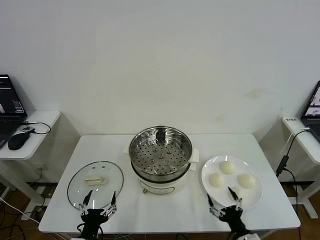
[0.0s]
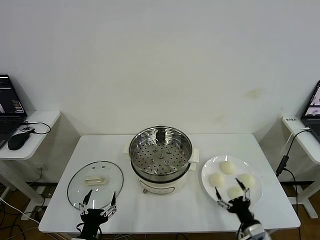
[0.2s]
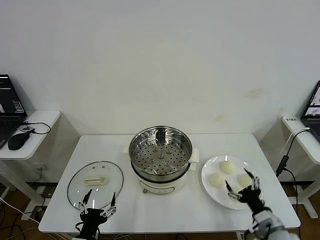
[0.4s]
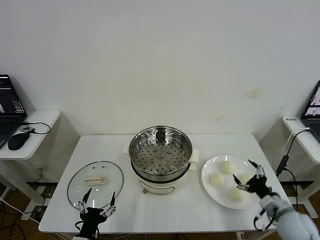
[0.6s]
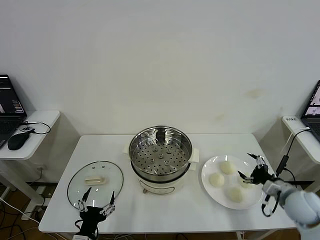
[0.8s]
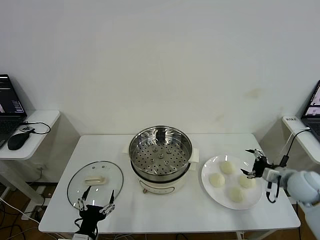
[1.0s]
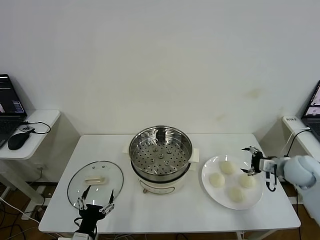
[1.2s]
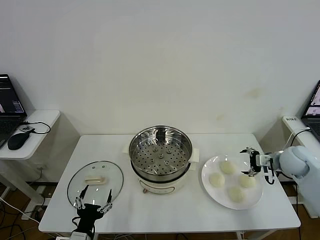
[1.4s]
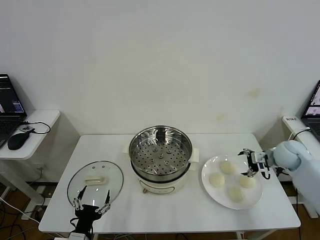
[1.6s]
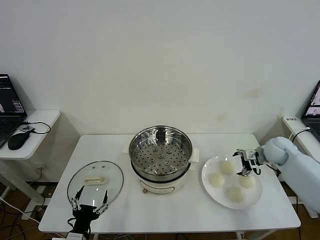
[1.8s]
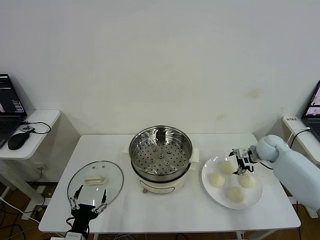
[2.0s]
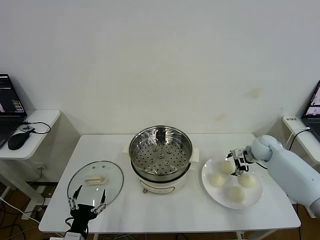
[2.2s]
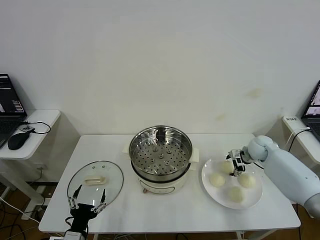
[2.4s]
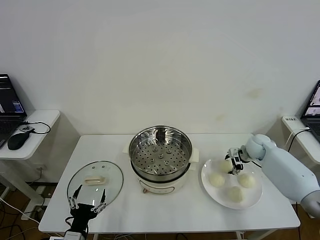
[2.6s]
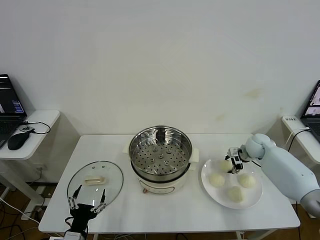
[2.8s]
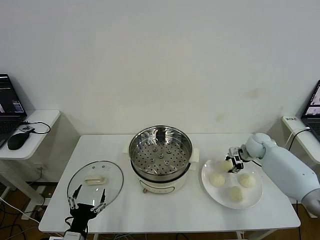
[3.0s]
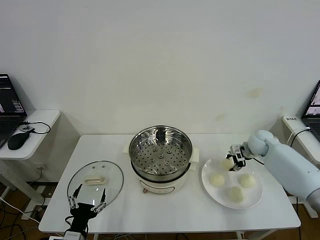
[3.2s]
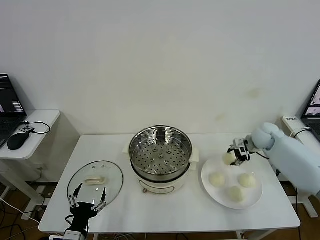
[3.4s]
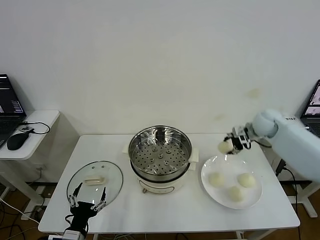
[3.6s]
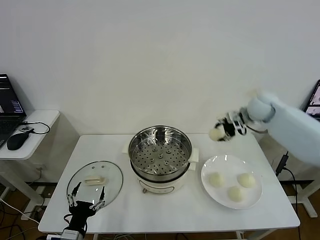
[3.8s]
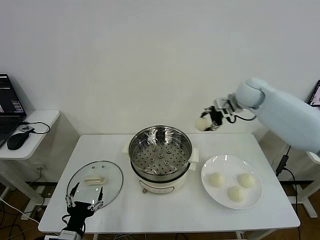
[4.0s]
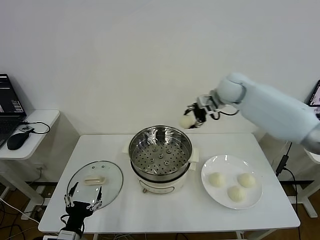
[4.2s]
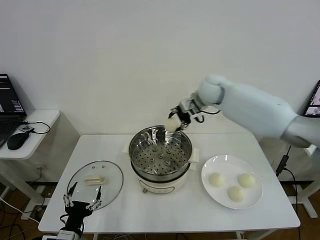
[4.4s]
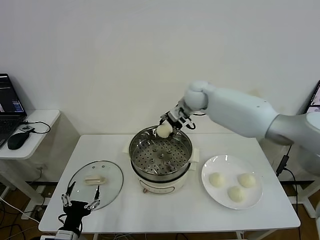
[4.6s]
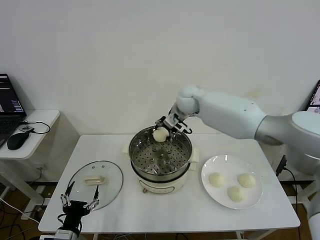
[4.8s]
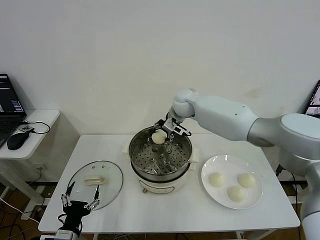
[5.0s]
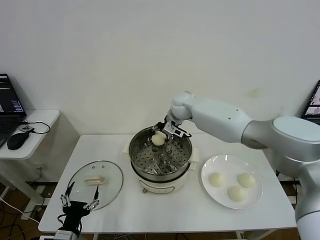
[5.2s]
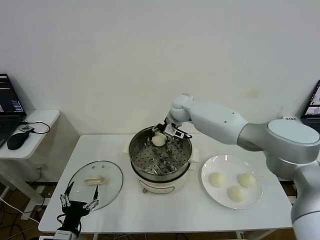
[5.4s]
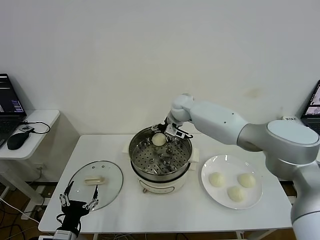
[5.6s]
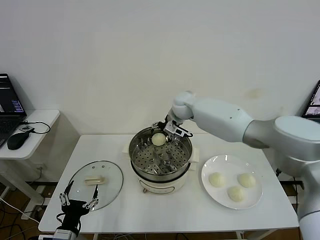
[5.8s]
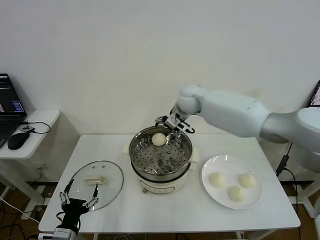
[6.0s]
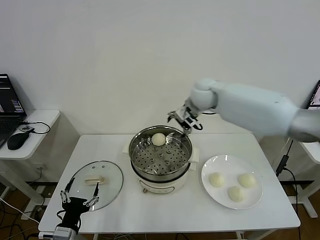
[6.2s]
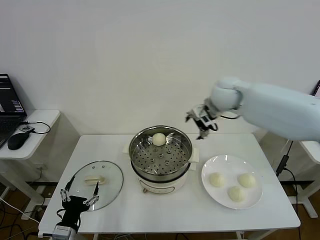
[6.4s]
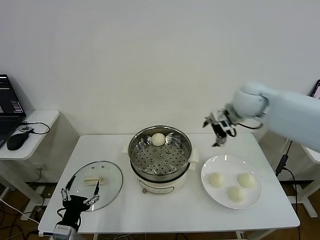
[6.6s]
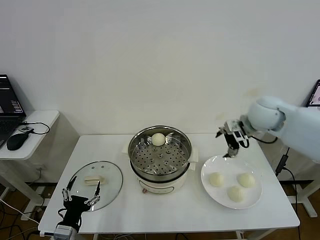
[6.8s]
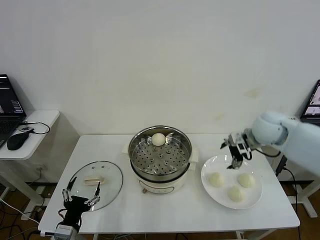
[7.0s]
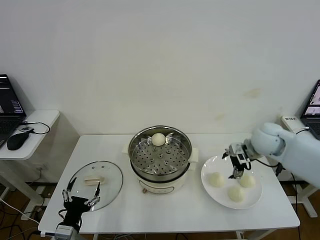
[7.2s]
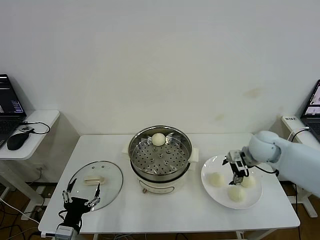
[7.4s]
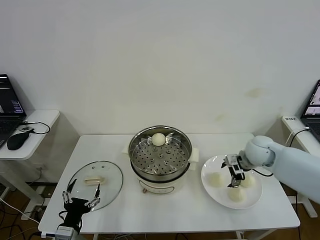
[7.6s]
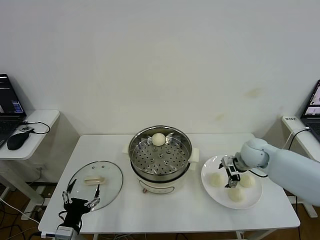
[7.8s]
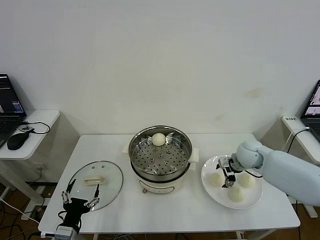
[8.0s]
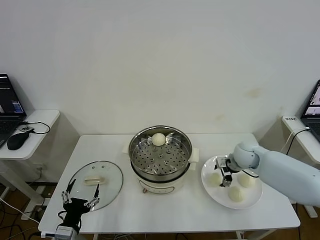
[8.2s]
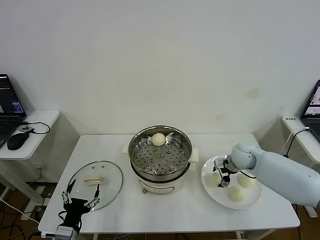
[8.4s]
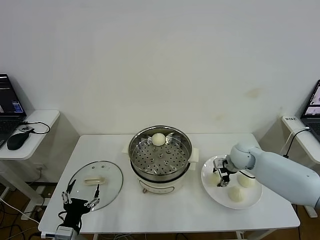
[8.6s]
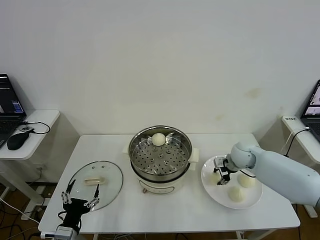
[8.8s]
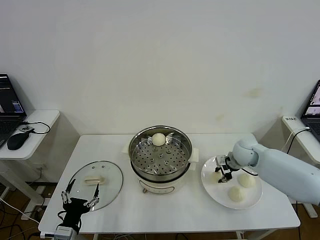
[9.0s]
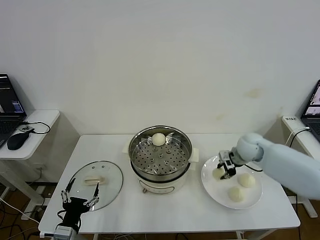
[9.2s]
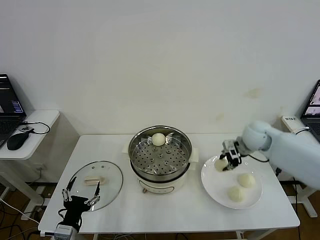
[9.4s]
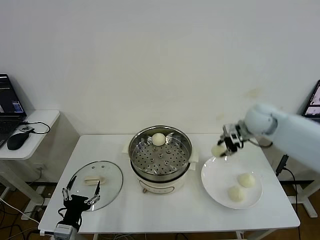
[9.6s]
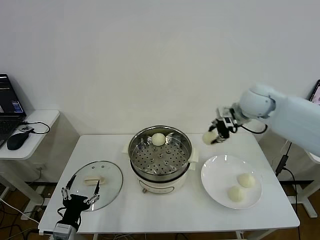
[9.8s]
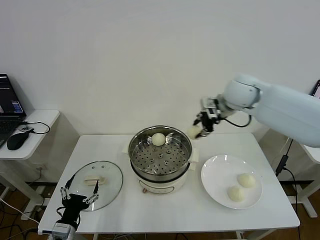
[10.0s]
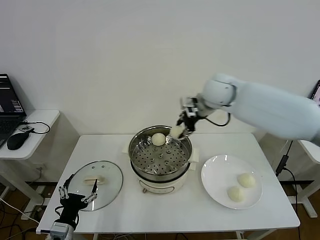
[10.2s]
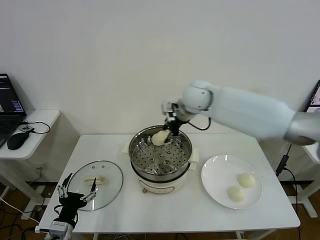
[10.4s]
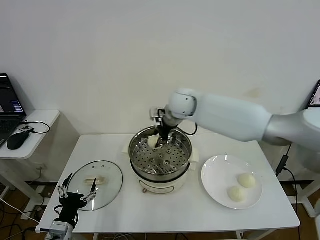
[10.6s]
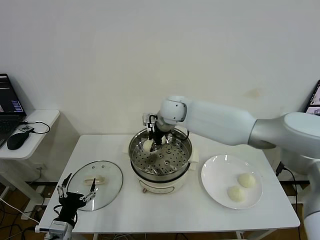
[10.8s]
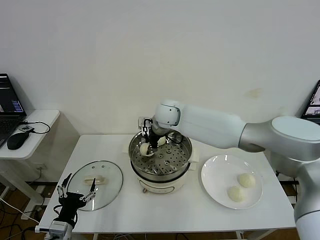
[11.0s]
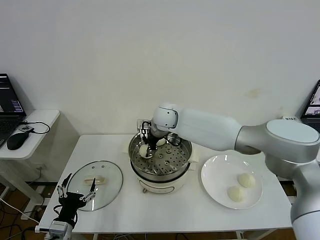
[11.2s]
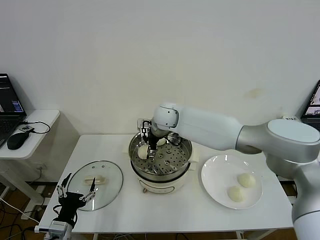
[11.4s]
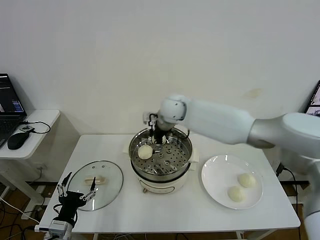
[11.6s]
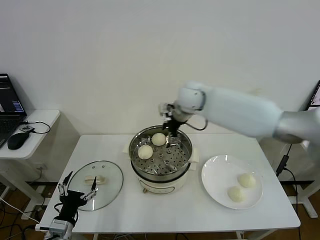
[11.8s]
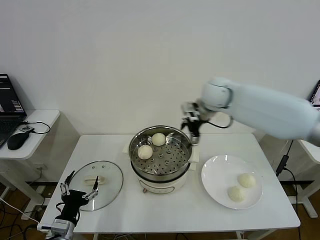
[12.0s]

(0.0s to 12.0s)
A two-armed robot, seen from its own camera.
Step, 0.0s - 3.0s: Grasp the baozi in the plate with right gripper.
Step, 3.2s - 5.6s: Place the baozi on the steamer with right gripper.
Step, 5.8s - 8.8s: Grasp the baozi in the plate with right gripper.
Step, 9.0s - 11.4s: Place the baozi on the steamer with right gripper.
1.6s - 3.0s: The right gripper shifts about 10 cm forward and to the left, and closes.
3.0s - 4.4s: The right gripper heads upward and to the left, covering about 30 cm.
4.4s - 6.0s: The right gripper goes roughly 5 cm to the left, and opens.
6.0s - 7.6s: The right gripper travels to the right, backward and downward by some 30 cm.
7.6s - 9.0s: The right gripper shifts by approximately 5 cm, and closes.
9.0s - 10.4s: The right gripper goes roughly 30 cm upward and to the left.
10.4s - 12.0s: The right gripper reaches about 10 cm to the left, then returns, and opens.

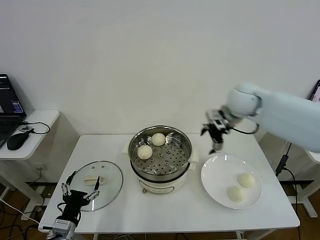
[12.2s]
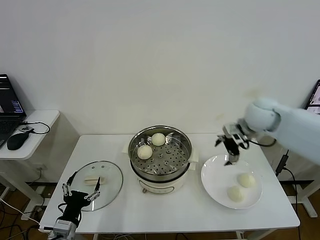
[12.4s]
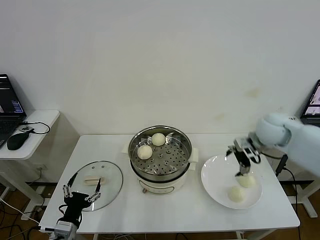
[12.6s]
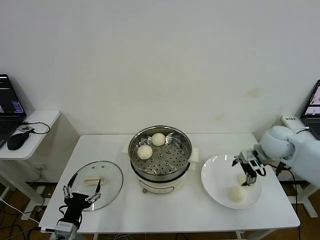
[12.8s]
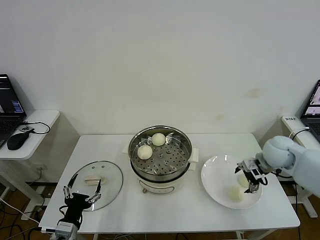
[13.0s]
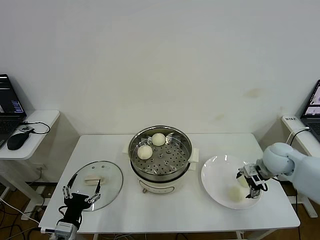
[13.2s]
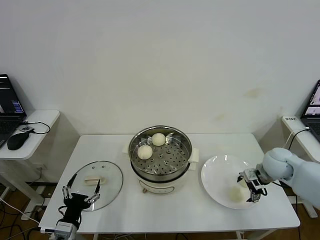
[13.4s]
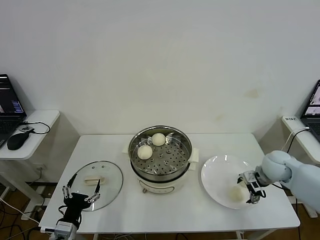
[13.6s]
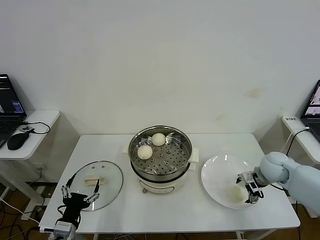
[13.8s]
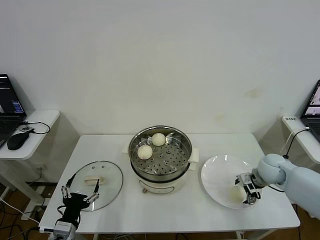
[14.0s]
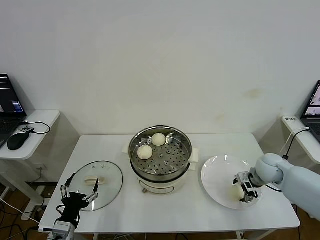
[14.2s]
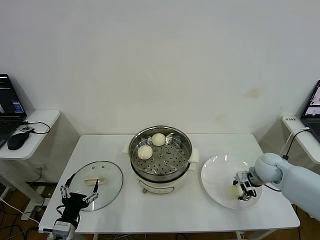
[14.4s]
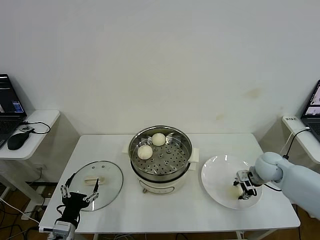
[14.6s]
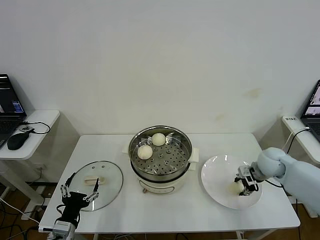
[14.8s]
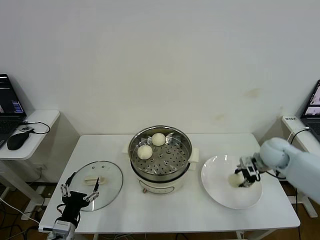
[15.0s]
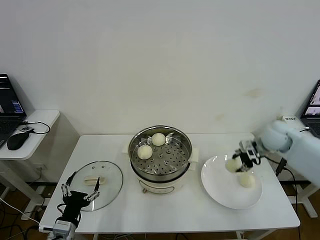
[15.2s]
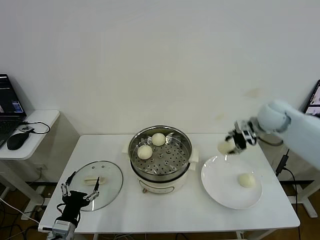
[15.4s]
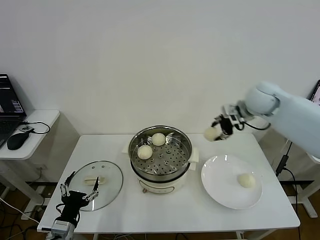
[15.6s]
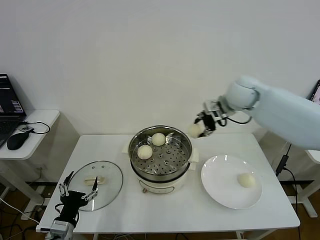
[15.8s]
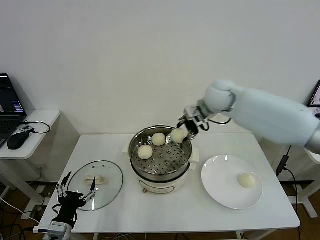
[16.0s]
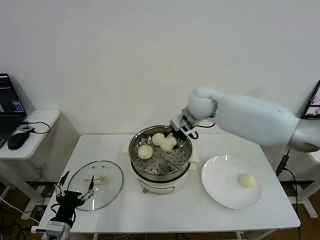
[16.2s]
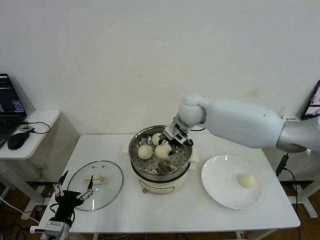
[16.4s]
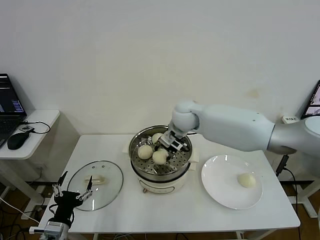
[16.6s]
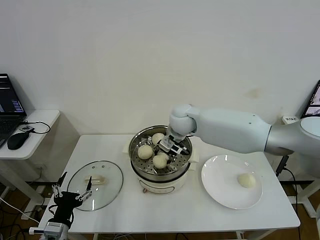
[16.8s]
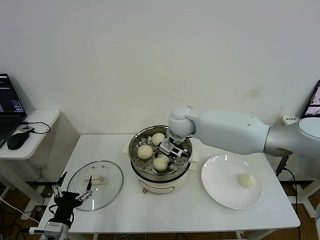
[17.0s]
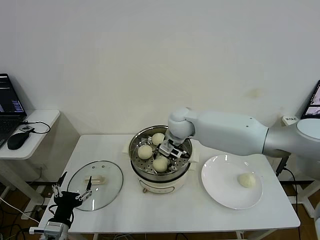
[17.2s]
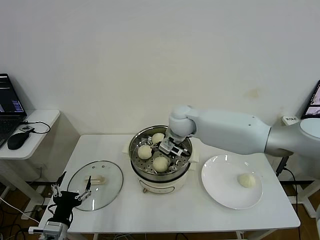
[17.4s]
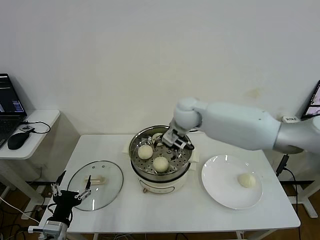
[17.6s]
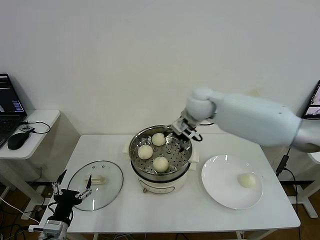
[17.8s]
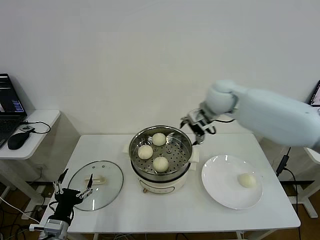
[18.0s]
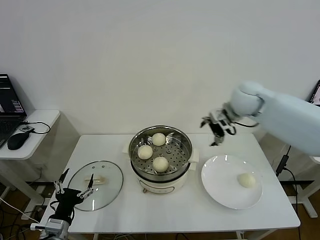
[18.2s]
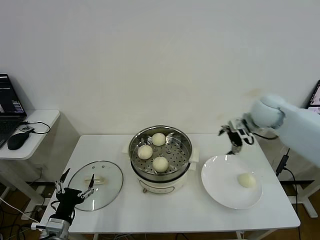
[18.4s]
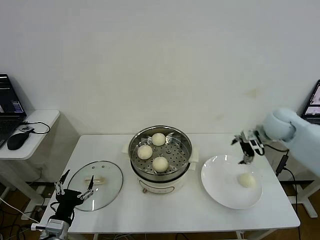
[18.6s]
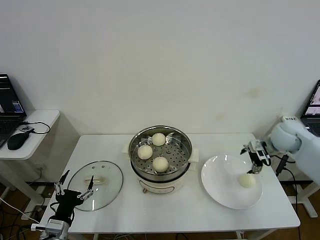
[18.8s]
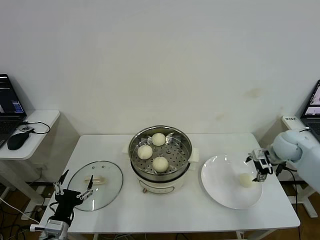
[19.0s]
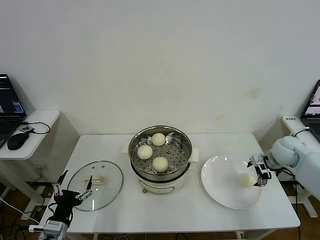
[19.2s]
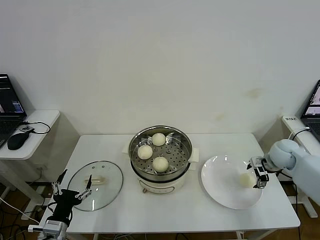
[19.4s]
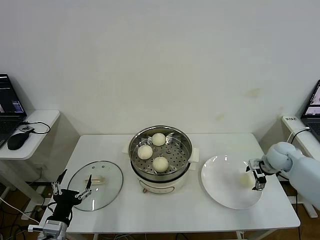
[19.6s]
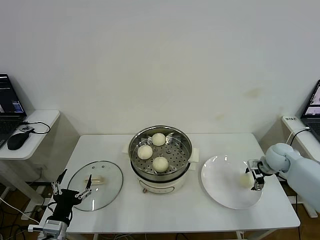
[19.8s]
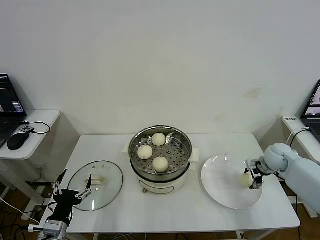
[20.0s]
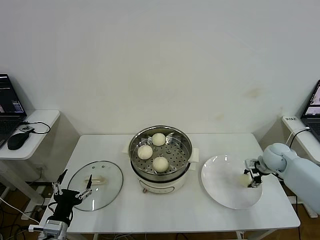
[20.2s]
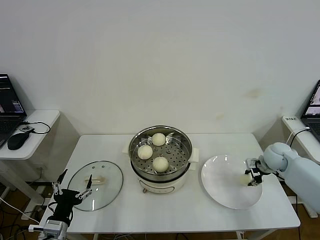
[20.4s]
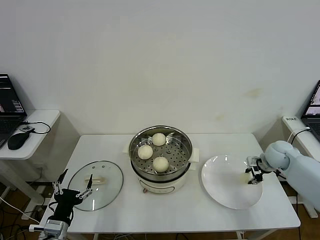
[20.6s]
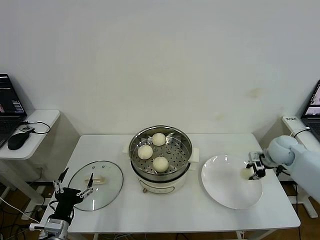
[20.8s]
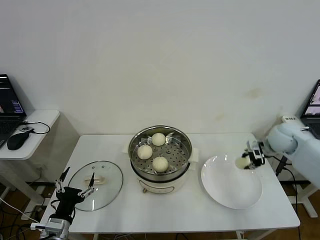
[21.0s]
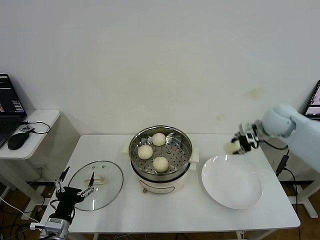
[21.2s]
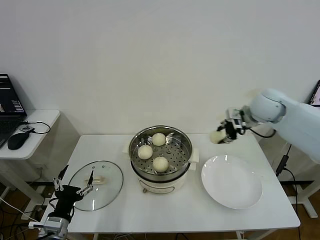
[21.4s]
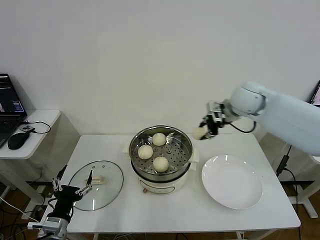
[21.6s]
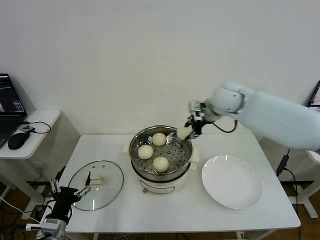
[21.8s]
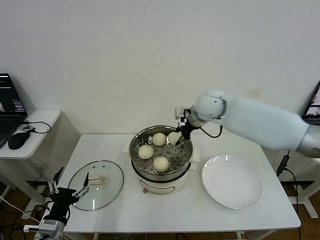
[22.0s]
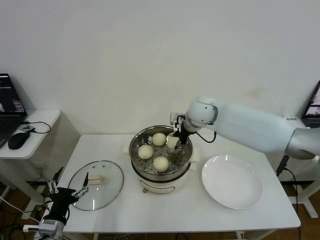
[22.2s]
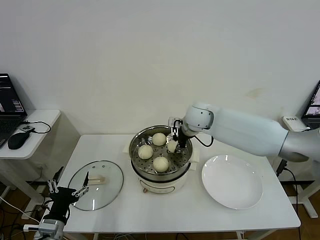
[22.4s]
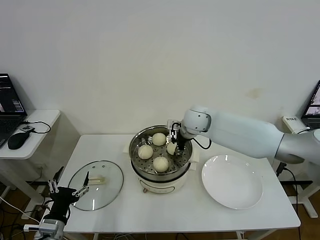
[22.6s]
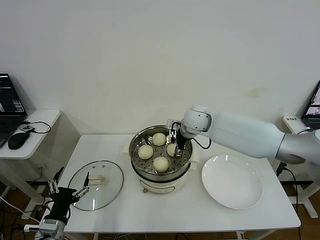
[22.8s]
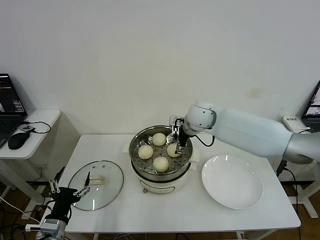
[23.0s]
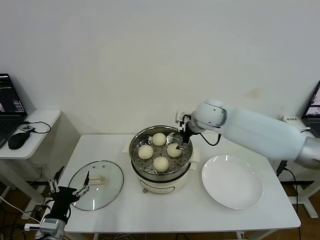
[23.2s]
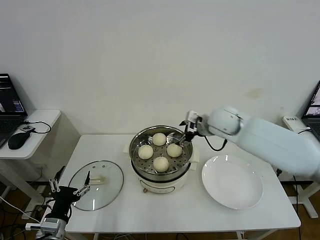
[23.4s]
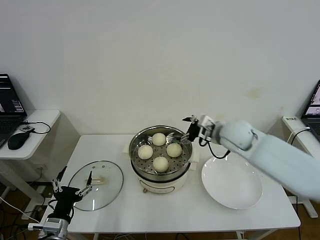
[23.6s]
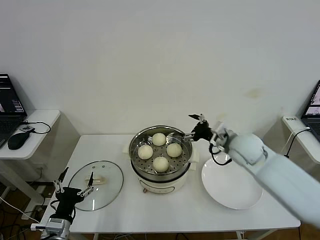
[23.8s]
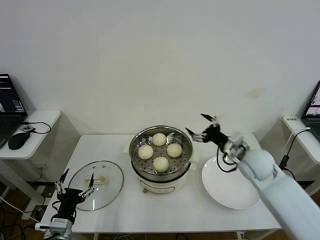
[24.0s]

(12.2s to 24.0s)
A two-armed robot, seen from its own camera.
Step, 12.2s - 14.4s: Grasp the baozi in the plate with right gripper.
Step, 14.6s - 17.4s: Place the baozi on the steamer with right gripper.
Step, 17.6s - 20.4s: Grasp the baozi in the plate with right gripper.
Step, 20.6s - 23.0s: Place the baozi on the steamer with right gripper.
12.2s - 13.6s: The right gripper shifts some 25 cm downward, to the right and backward.
13.6s - 15.2s: The right gripper shifts some 10 cm upward and forward, and closes its fingers.
15.2s - 16.6s: The right gripper moves to the left, roughly 30 cm.
16.6s - 18.2s: The right gripper travels to the right and upward by roughly 15 cm, and opens its fingers.
18.2s - 19.6s: The right gripper goes approximately 30 cm downward and to the right.
19.6s - 21.0s: The right gripper moves upward, roughly 5 cm, and closes.
21.0s - 22.6s: The right gripper travels to the left by about 30 cm.
22.6s - 24.0s: The right gripper shifts roughly 20 cm to the right and backward, and opens up.
